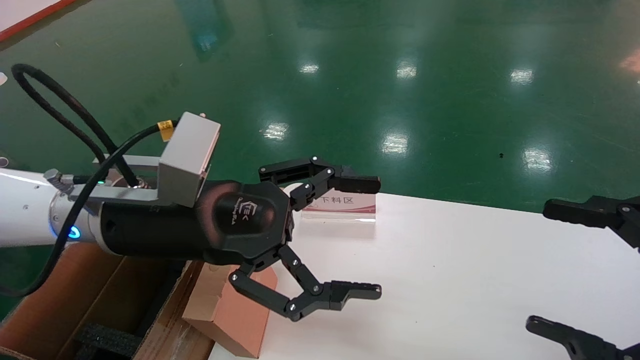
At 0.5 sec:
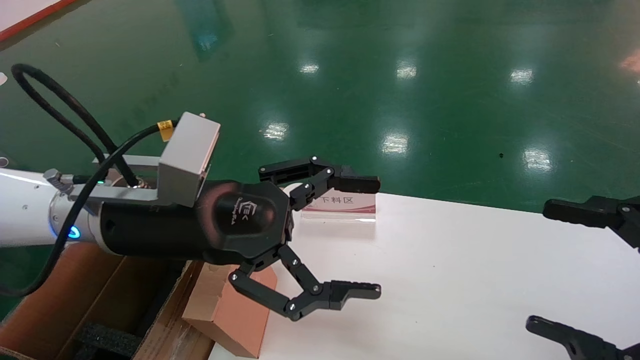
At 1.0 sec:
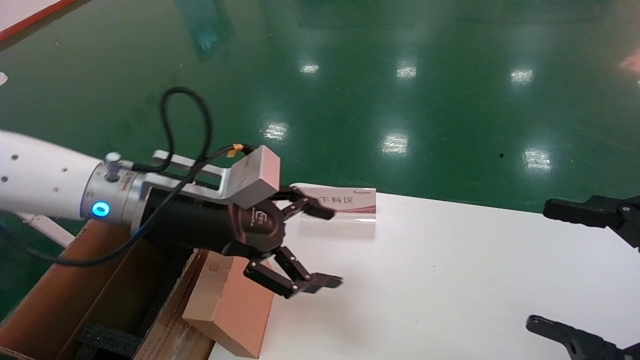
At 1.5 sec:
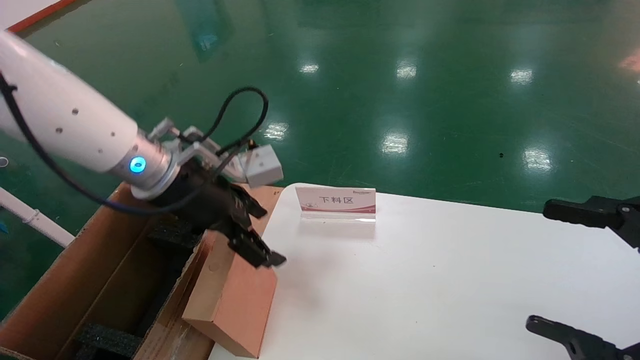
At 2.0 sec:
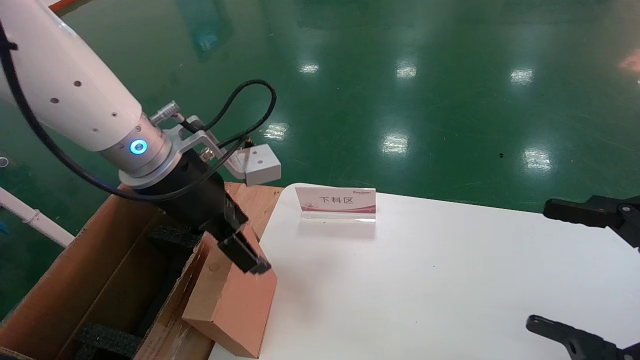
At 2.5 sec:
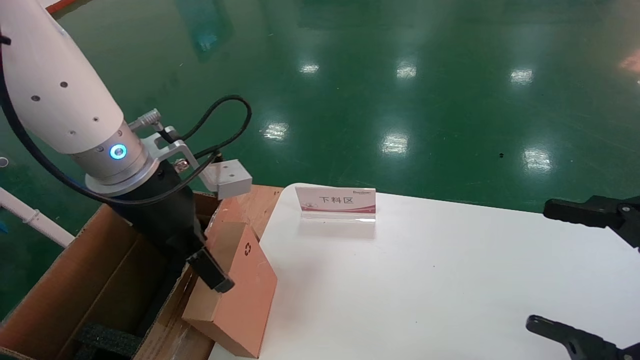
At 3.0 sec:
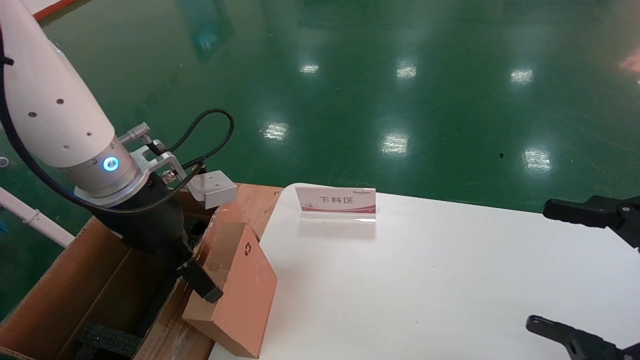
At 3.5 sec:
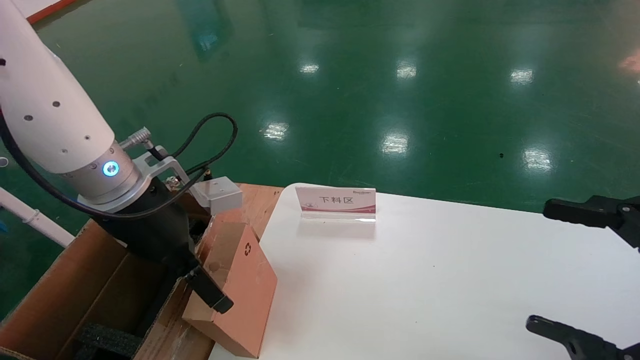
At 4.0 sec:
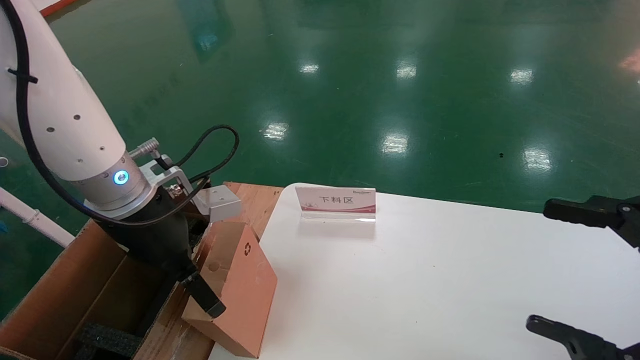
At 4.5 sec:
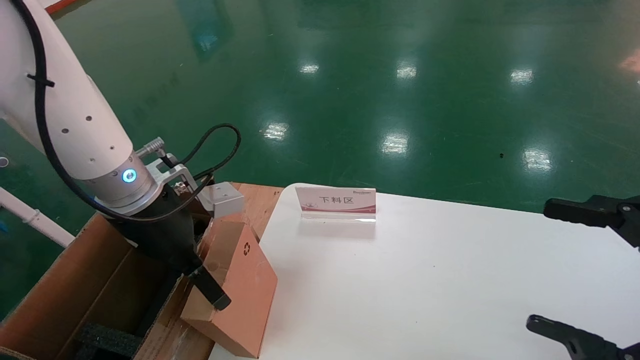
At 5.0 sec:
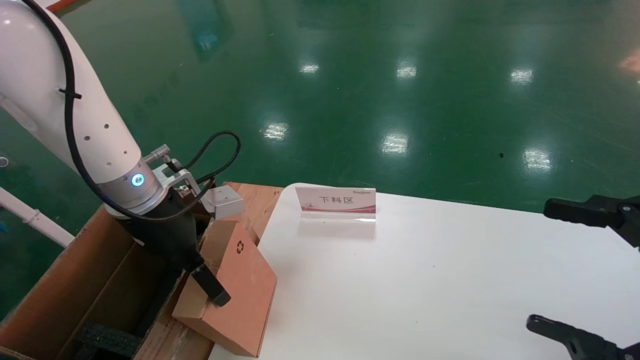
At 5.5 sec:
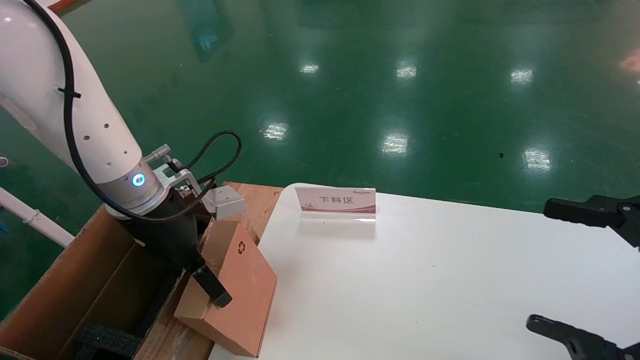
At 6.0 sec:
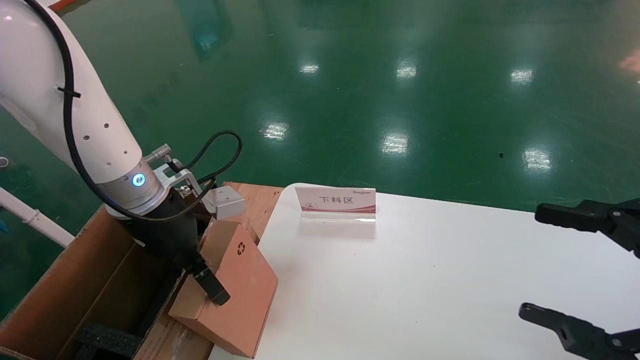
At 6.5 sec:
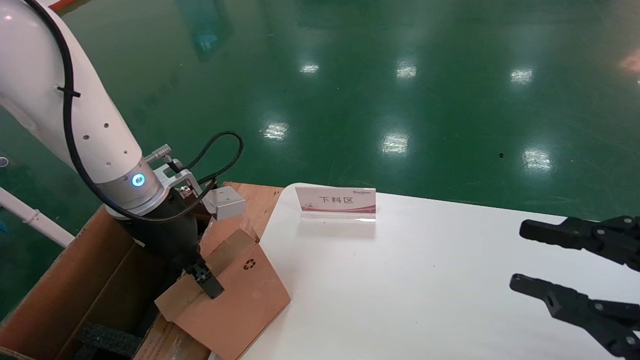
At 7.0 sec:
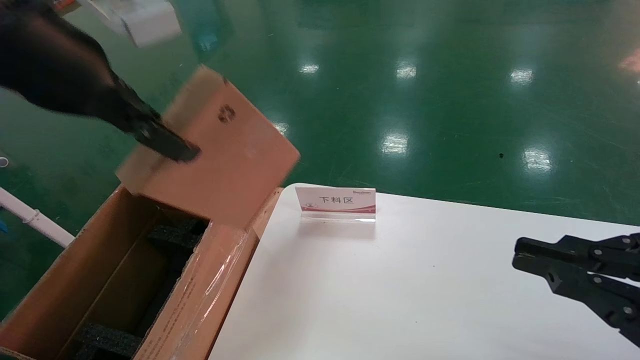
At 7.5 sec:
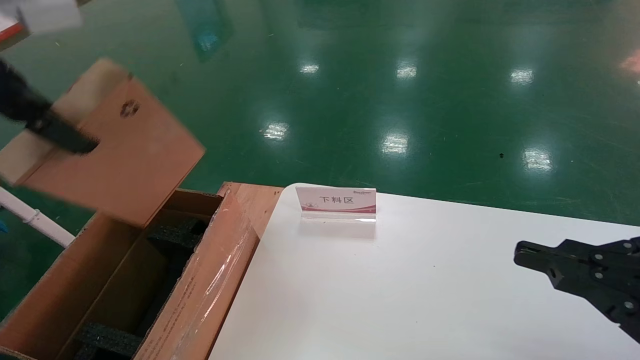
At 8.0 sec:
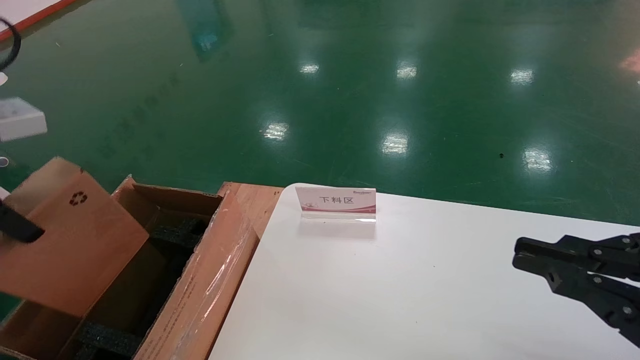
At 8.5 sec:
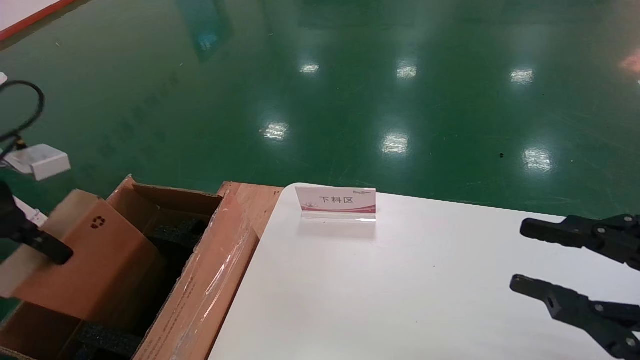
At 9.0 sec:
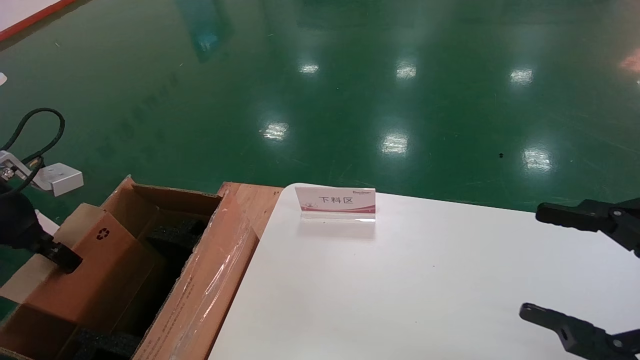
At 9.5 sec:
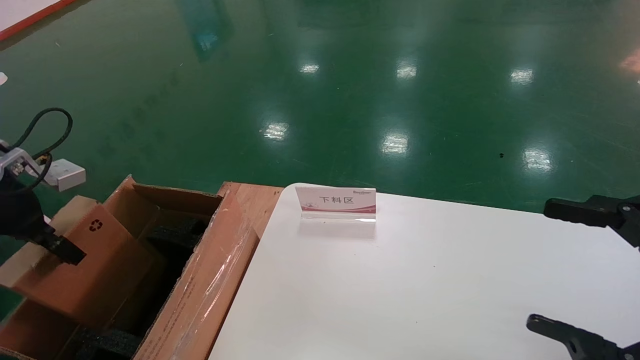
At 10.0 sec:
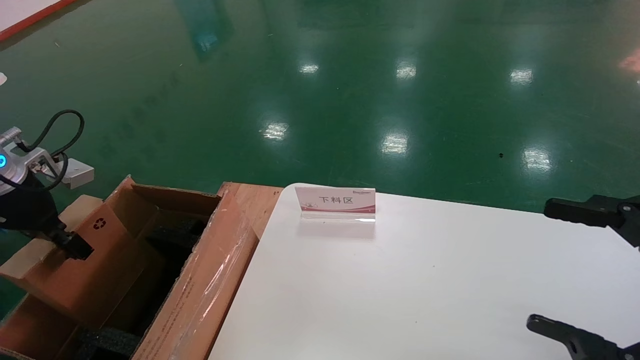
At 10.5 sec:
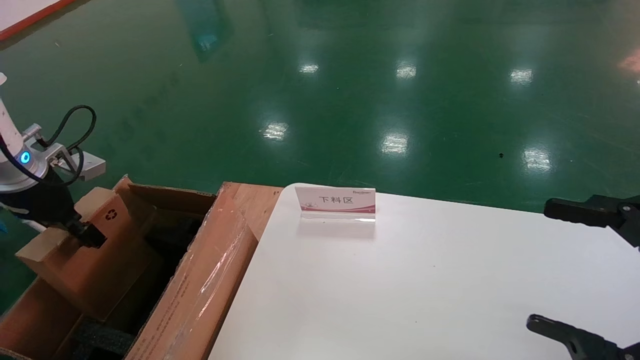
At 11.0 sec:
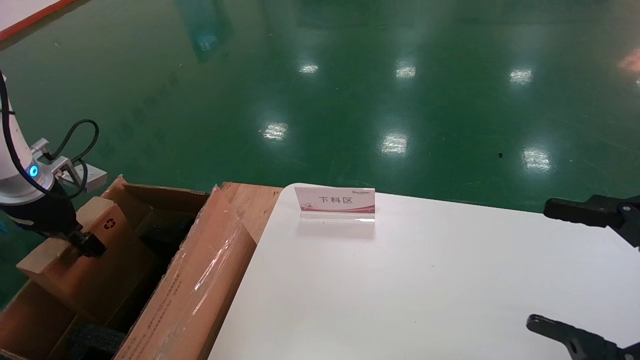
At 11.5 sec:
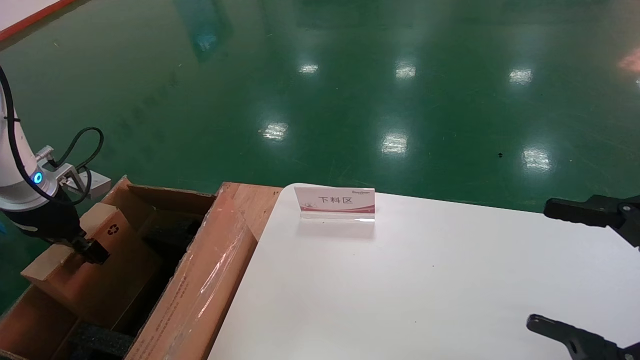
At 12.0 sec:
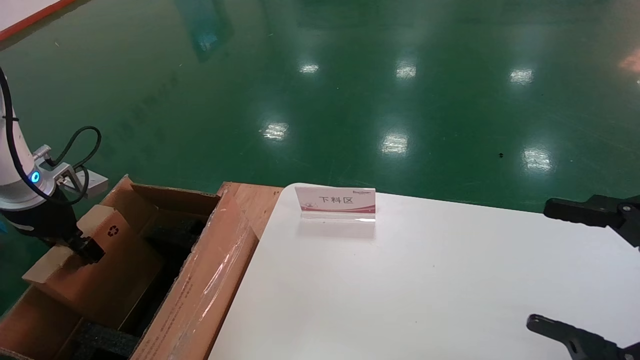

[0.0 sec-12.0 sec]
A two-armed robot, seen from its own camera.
Task of the whole recording: pick up the small cardboard box and load it into the large cardboard box.
Step, 1.0 sec to 6.0 sec: Pick up the mouse and power cord box.
0.0 sec to 2.0 sec: The left gripper shifts about 5 cm forward.
4.0 sec to 6.0 sec: The grippers make only small movements.
6.0 sec to 8.0 sec: The left gripper moves to the left, upward and backward, some 25 cm, and closes. Meanwhile the right gripper closes its fingers.
8.0 sec to 10.0 sec: The right gripper opens; the left gripper goes approximately 15 cm downward, forward and to the left.
10.0 sec to 12.0 sec: The grippers make only small movements.

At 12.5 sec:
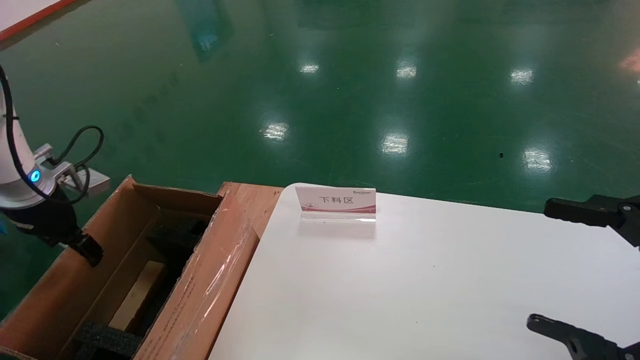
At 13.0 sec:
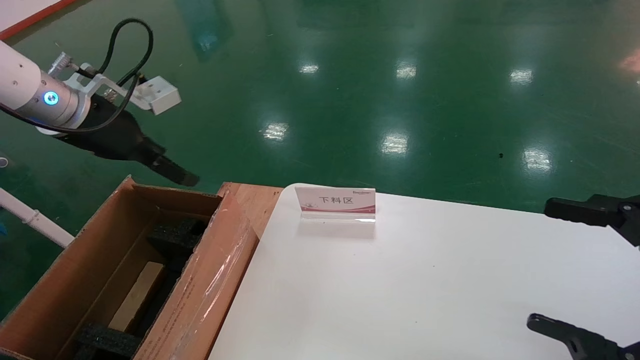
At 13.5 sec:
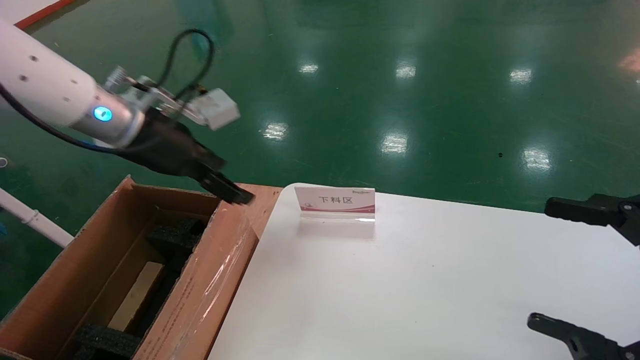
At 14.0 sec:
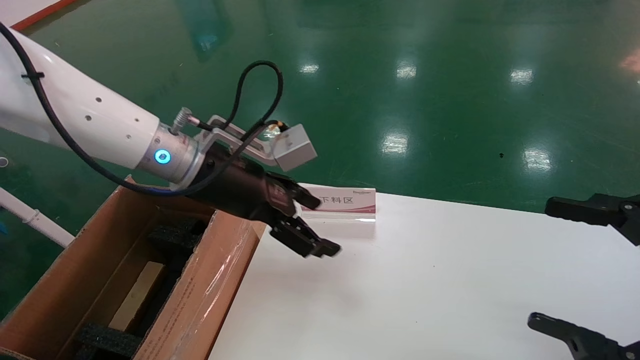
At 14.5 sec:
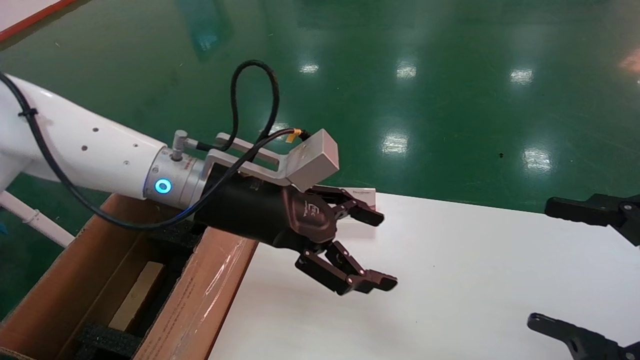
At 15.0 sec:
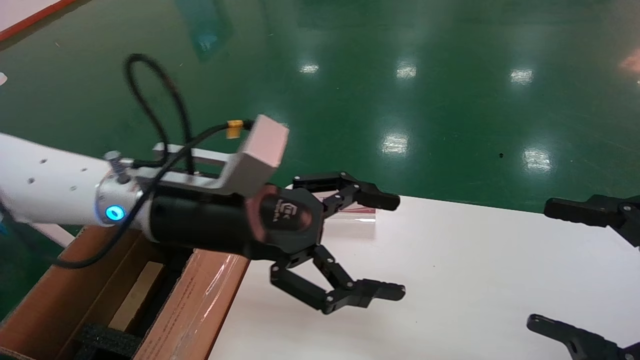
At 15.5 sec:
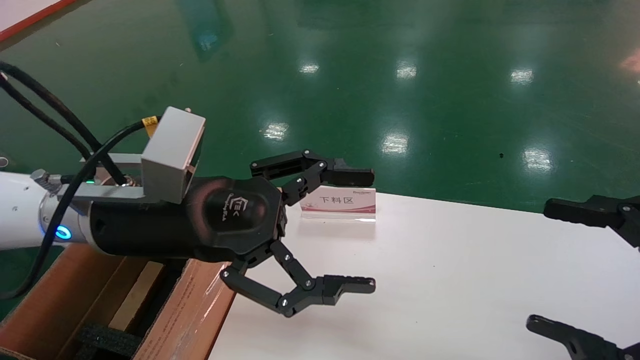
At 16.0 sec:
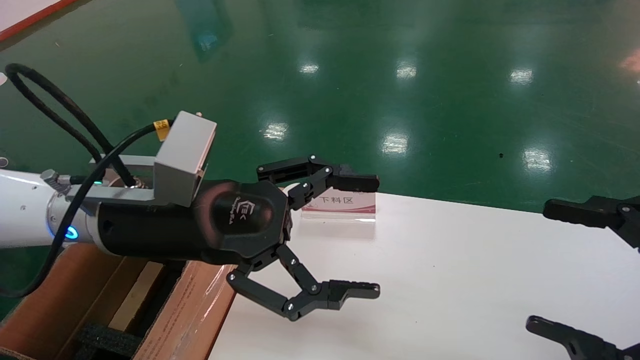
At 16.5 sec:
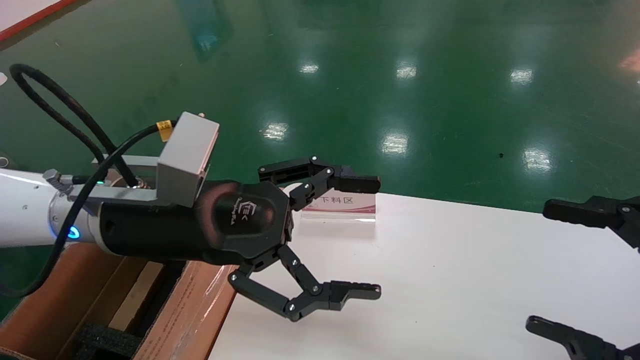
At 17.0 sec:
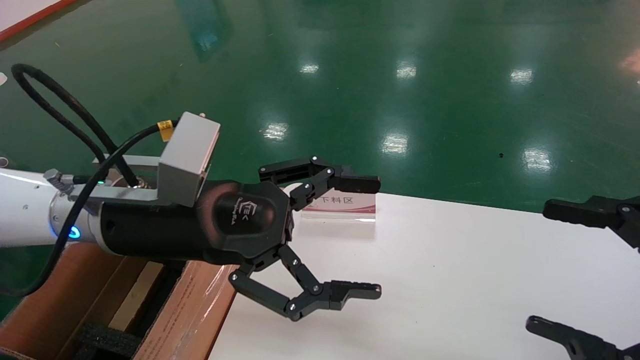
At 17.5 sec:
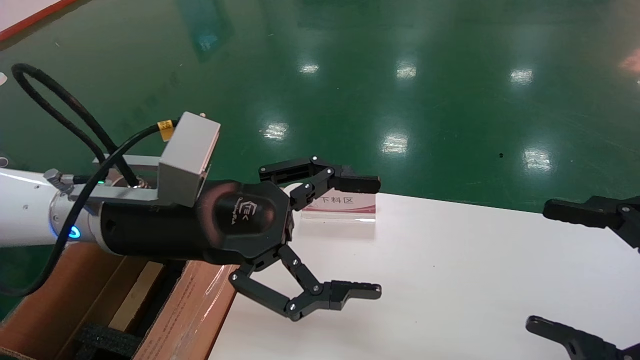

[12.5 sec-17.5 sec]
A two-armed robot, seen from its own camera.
Task of the whole recording: pick up the small cardboard box and load it into the large cardboard box.
12.5 sec to 15.0 sec: The left gripper shifts approximately 30 cm to the right.
15.0 sec to 17.5 sec: There are only small adjustments of the grippers.
